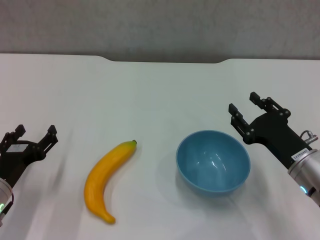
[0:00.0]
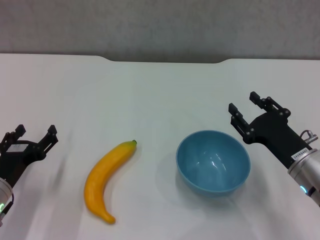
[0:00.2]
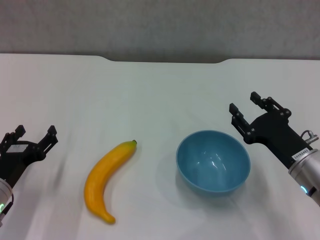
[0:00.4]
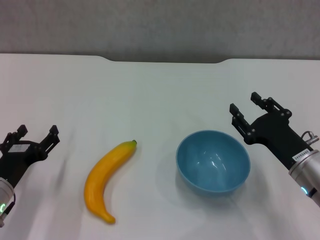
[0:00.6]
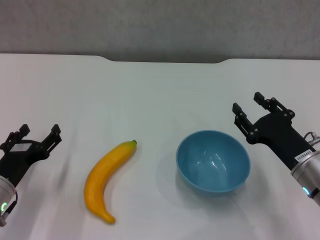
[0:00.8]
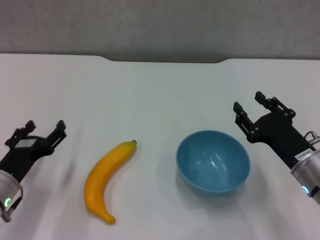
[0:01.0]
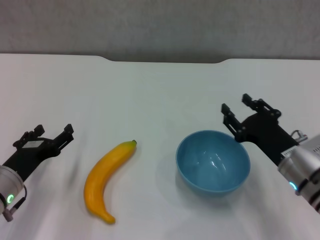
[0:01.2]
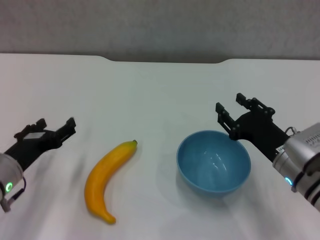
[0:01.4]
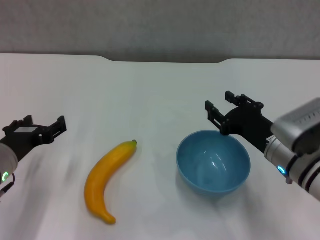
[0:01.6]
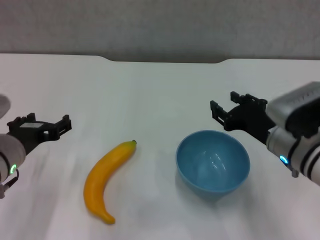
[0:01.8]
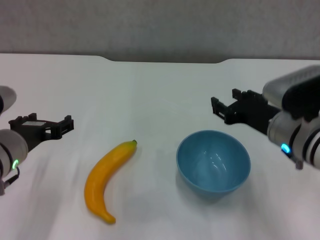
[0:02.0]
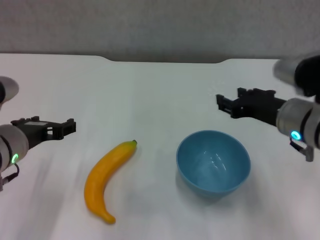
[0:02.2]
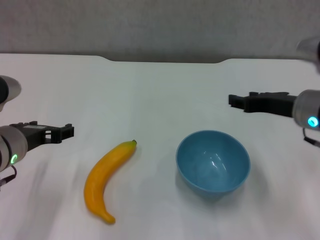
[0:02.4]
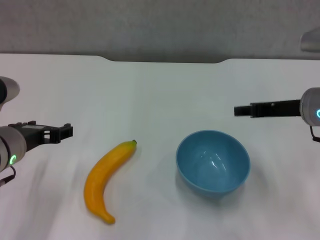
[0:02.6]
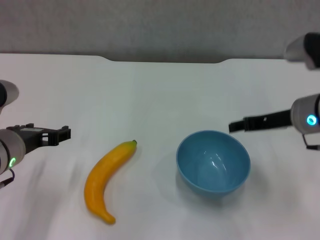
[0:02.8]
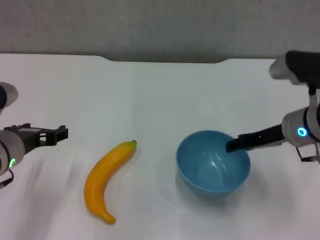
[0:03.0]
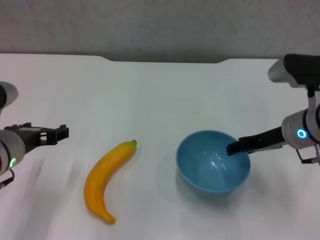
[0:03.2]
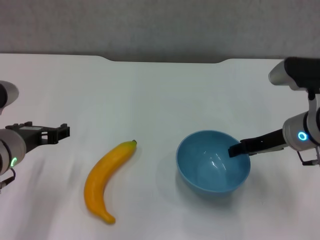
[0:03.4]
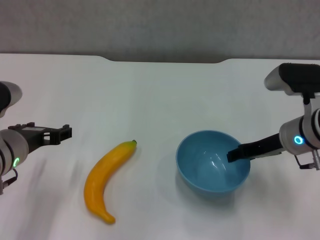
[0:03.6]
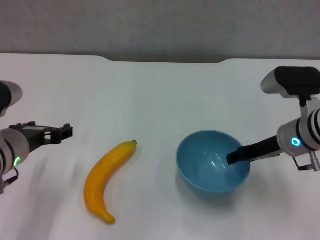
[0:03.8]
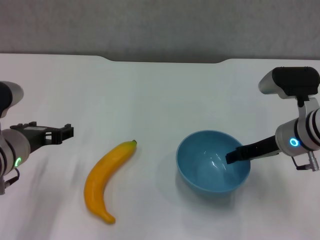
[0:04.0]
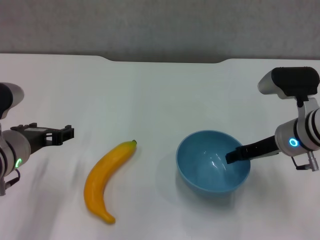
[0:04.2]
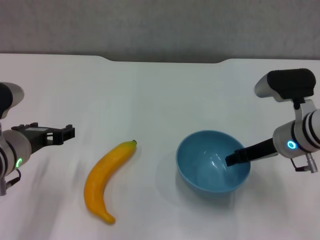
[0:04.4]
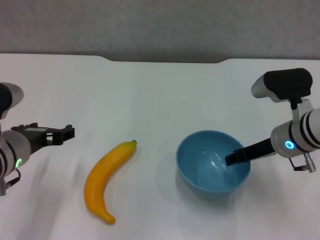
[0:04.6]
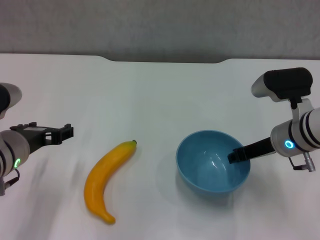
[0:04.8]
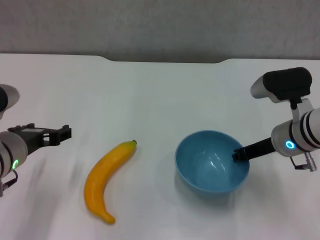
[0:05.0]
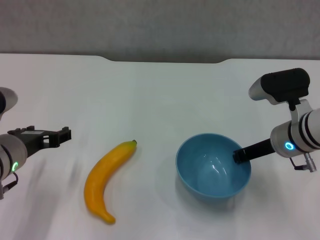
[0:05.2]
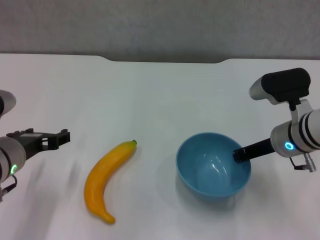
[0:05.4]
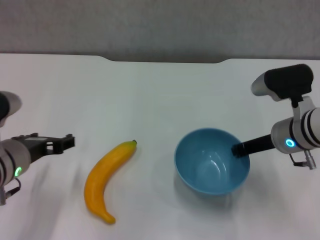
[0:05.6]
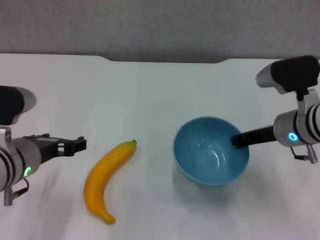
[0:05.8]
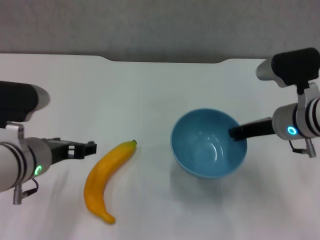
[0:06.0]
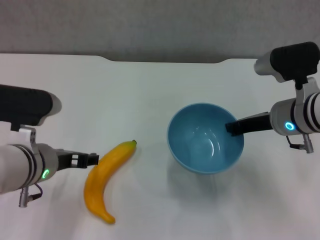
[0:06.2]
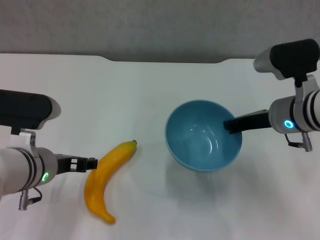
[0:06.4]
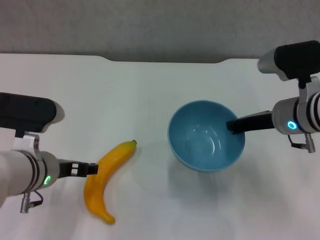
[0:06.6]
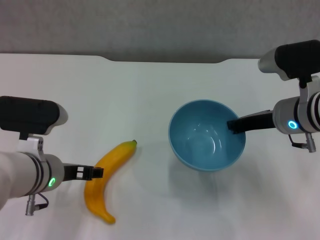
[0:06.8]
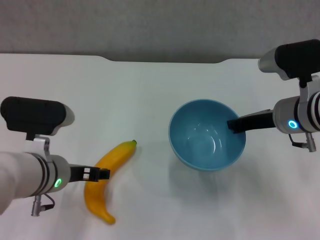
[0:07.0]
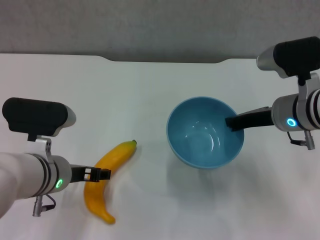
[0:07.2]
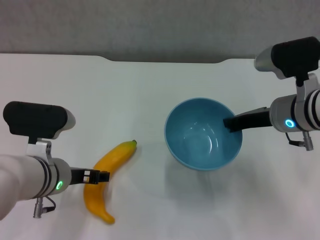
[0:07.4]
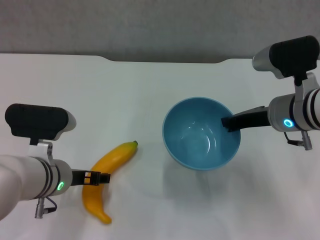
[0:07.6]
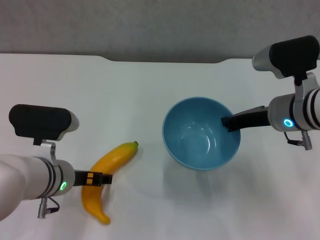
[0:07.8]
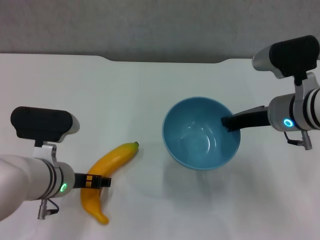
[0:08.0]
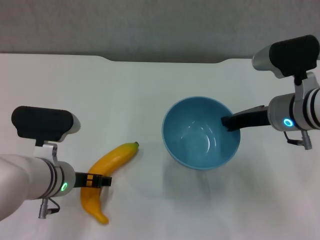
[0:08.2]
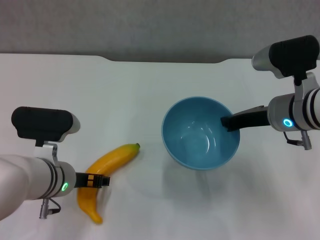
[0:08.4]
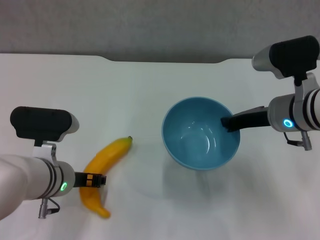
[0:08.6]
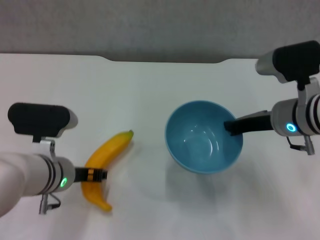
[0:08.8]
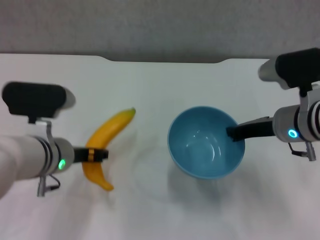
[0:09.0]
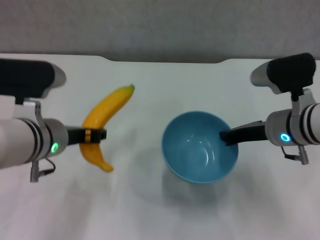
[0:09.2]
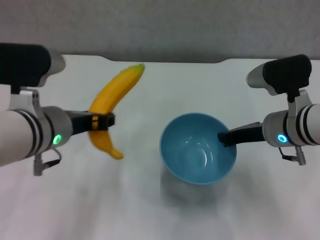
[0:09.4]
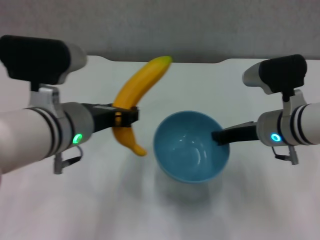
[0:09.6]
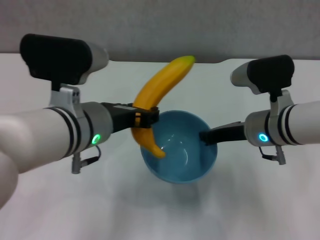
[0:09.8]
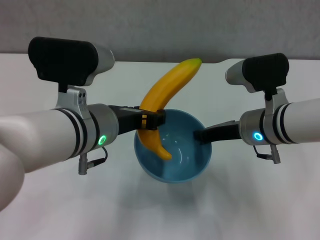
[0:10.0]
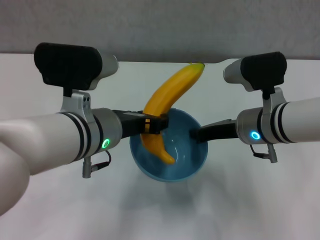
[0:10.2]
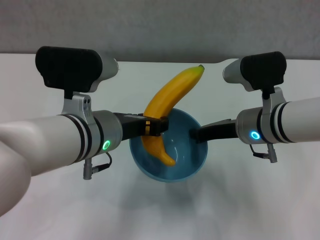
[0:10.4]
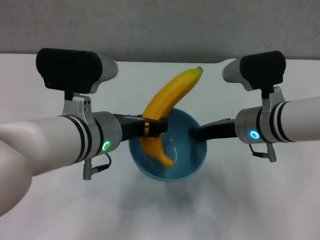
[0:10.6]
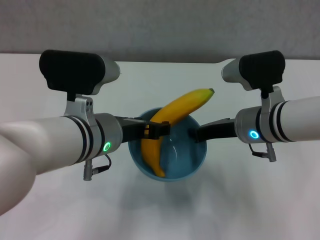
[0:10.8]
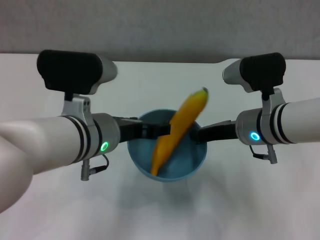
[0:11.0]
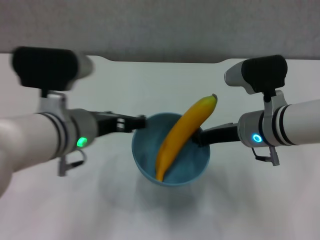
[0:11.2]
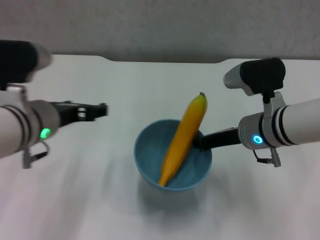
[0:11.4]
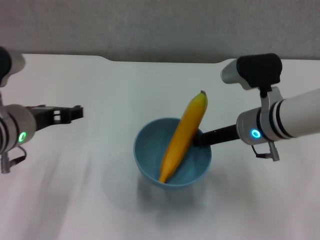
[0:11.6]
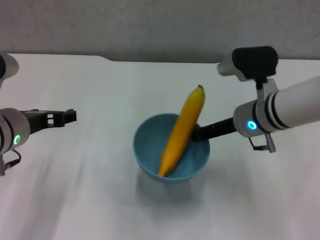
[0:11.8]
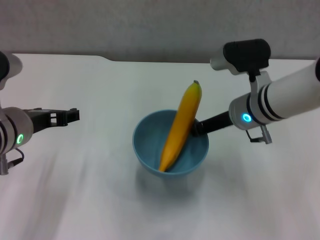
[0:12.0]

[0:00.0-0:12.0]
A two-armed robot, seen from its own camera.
Step, 0:00.0 to 0:05.0: Grasp the blue bowl with right gripper.
Step, 0:05.2 to 0:06.4: Lift the blue bowl with right gripper.
Step, 0:06.6 to 0:08.4: Grasp the banana with left gripper.
Step, 0:08.8 to 0:11.0: Place the banana in the blue bowl with left gripper.
0:00.0 to 0:01.6: The left gripper moves upward, roughly 5 cm.
0:01.6 to 0:03.0: The left gripper moves roughly 5 cm. Meanwhile the right gripper moves upward and forward, approximately 10 cm.
0:03.0 to 0:04.4: The grippers make only small movements.
0:04.4 to 0:06.0: The right gripper closes.
0:06.0 to 0:07.6: The left gripper travels downward by some 5 cm.
0:07.6 to 0:09.0: The left gripper closes.
0:09.0 to 0:10.4: The left gripper heads to the right and upward, covering roughly 10 cm; the right gripper moves to the left, some 5 cm.
0:10.4 to 0:12.0: The left gripper shifts roughly 10 cm to the left, and opens.

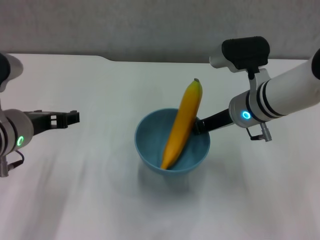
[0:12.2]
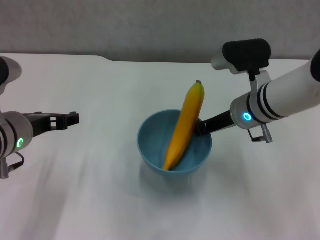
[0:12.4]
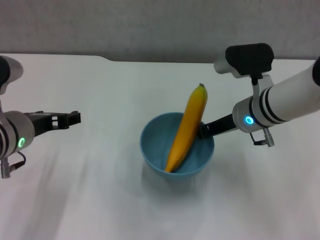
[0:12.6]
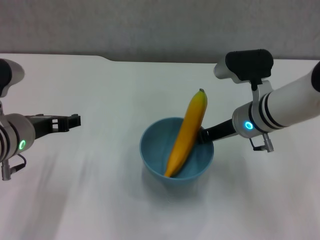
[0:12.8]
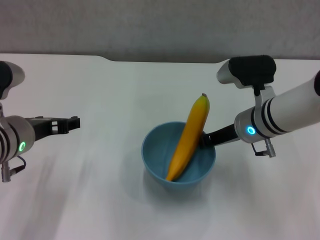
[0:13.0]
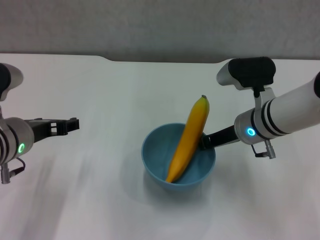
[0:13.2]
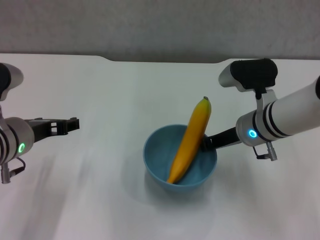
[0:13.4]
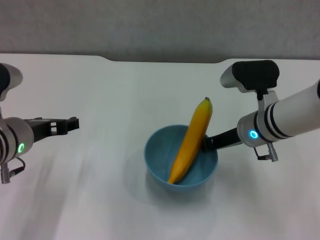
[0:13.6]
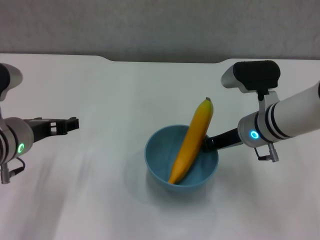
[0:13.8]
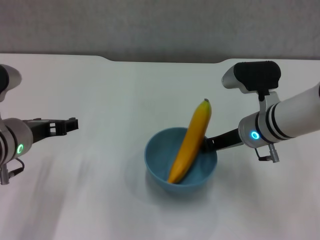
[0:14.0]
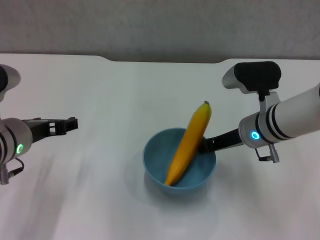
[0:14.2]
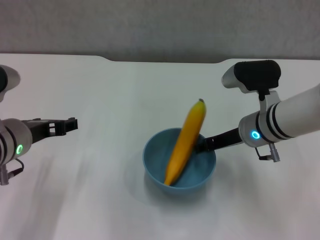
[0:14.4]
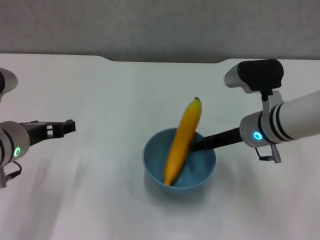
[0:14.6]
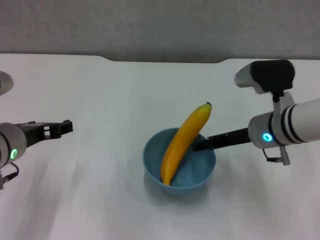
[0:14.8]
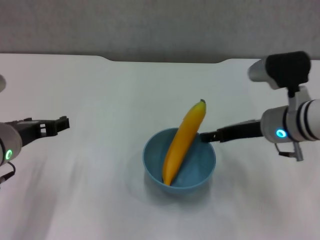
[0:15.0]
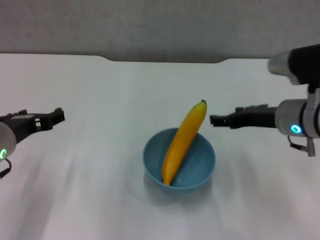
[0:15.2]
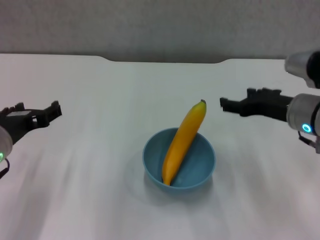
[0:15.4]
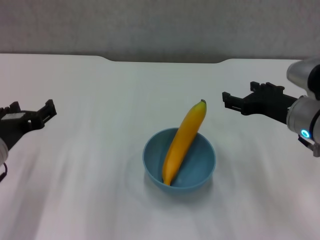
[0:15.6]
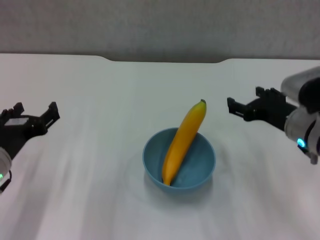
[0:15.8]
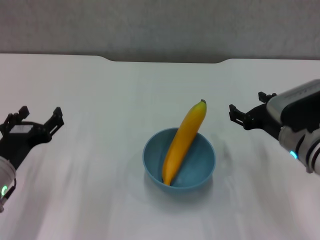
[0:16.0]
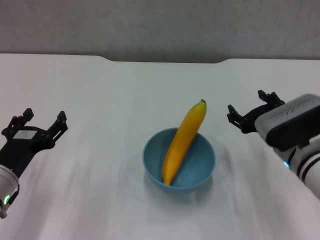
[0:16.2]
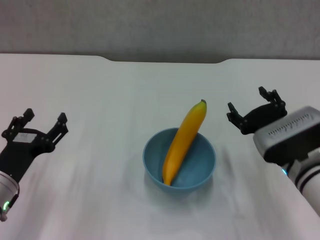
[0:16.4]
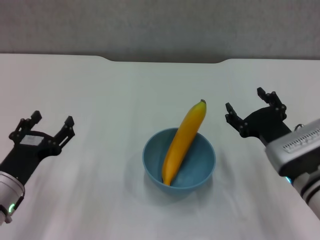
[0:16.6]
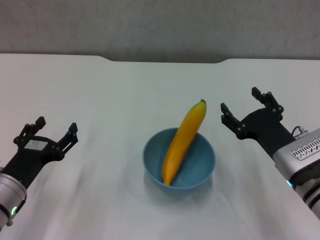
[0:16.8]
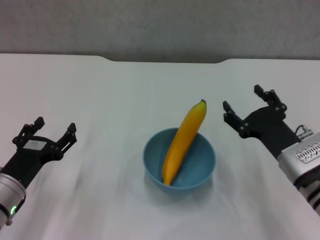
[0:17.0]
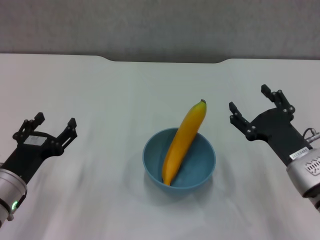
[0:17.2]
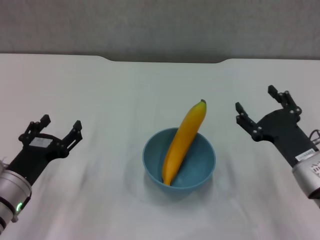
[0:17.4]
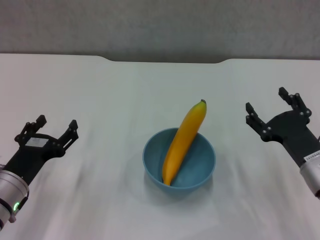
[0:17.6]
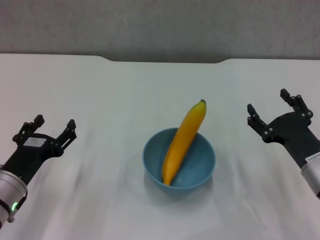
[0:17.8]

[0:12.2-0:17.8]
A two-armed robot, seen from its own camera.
Step, 0:12.2 to 0:14.8: Place the bowl on the table with right gripper.
0:13.6 to 0:15.0: The right gripper opens its fingers.
0:15.0 to 0:16.4: The left gripper is displaced downward by about 10 cm. Meanwhile the right gripper travels downward and backward by roughly 10 cm.
0:16.4 to 0:17.8: The right gripper ends up about 5 cm from where it was.
